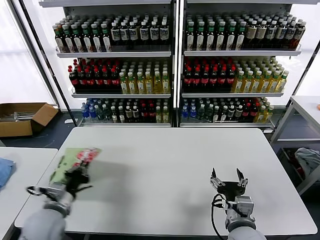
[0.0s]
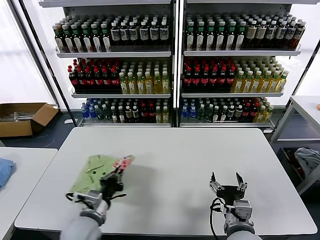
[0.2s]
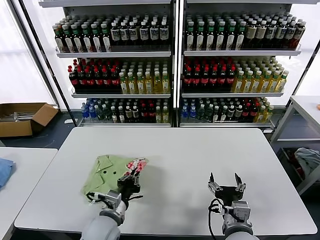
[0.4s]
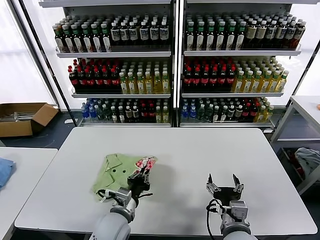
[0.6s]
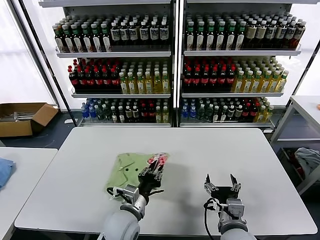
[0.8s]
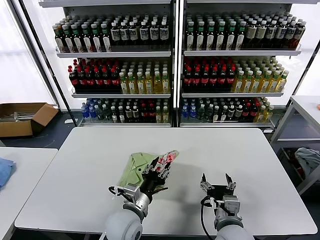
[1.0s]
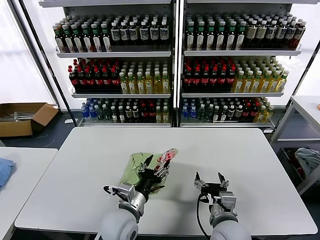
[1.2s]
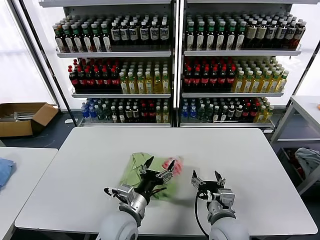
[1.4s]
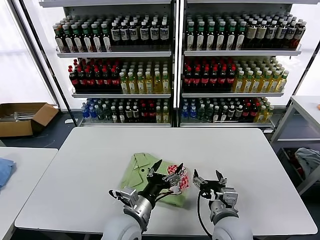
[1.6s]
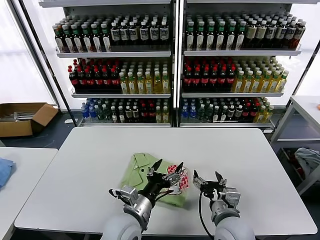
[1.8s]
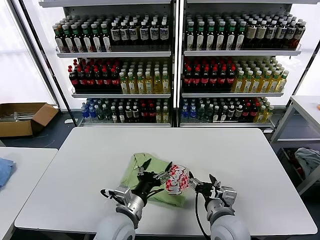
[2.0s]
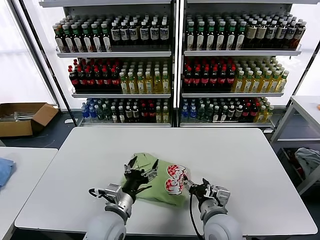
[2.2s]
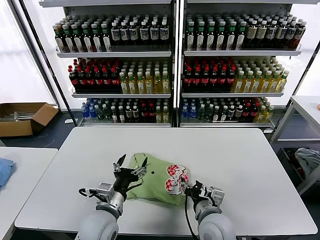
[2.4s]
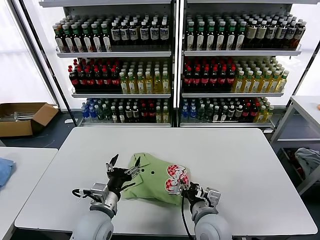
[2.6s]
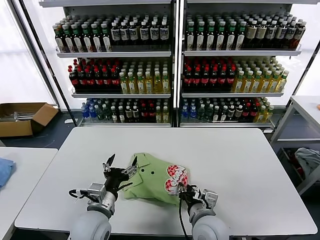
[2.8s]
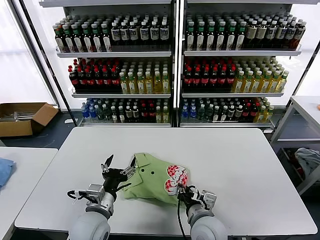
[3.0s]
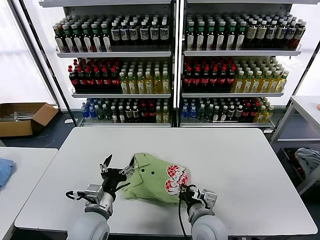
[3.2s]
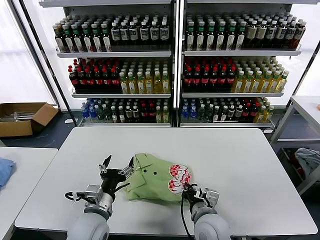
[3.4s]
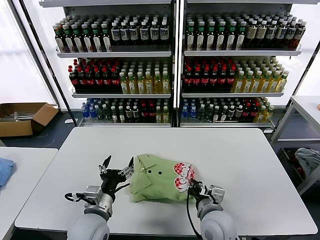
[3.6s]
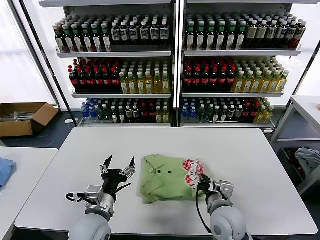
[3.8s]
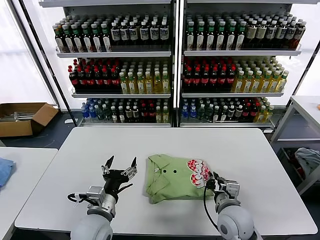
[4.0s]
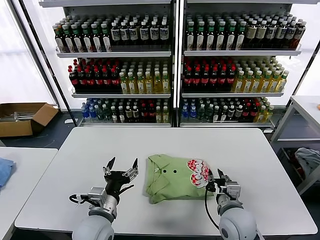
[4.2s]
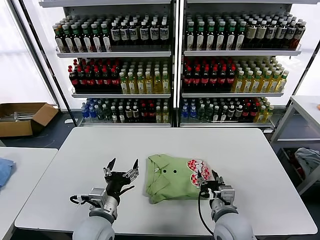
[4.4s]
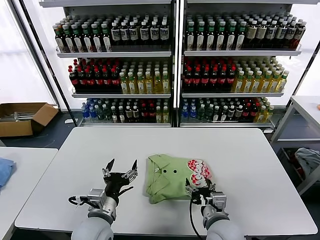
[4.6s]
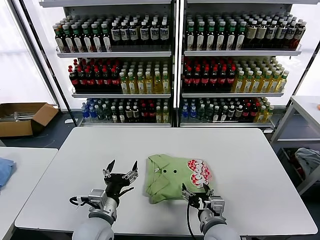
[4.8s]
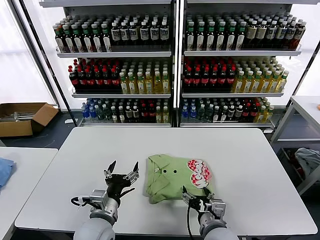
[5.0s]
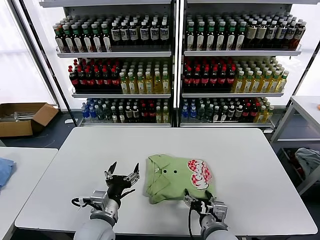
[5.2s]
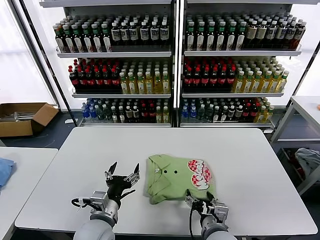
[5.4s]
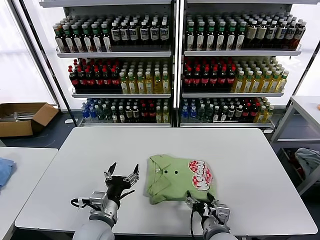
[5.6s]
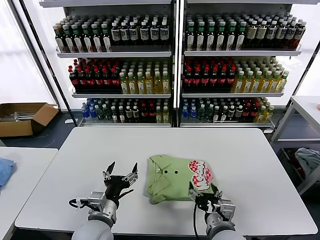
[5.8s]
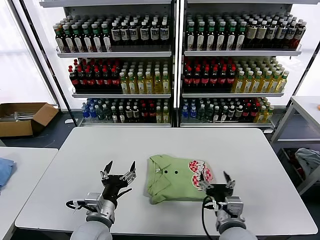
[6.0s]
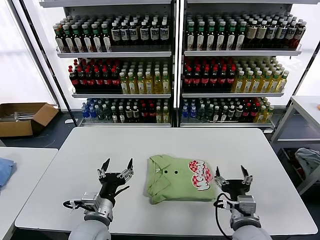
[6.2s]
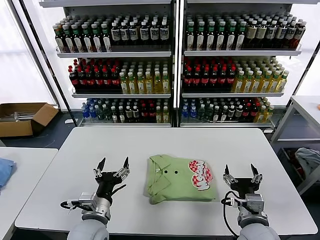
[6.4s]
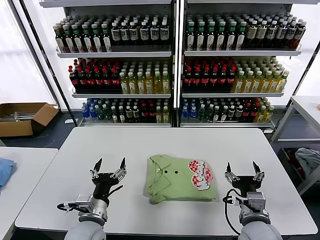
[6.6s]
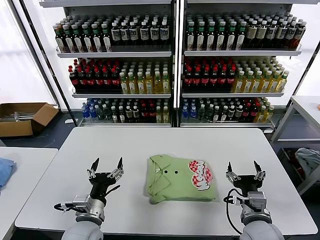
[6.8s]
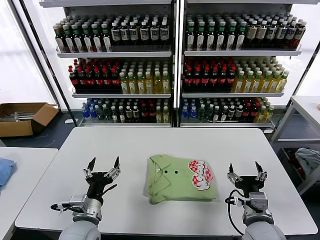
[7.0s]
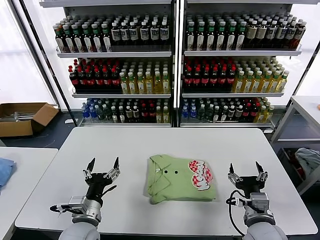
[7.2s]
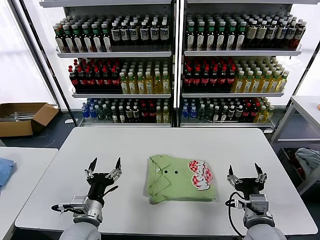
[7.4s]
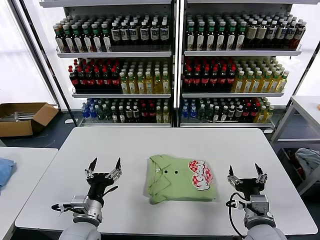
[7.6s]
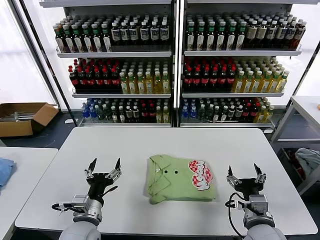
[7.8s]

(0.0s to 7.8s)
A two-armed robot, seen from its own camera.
Task of the whole recording: fold and organize the clothes.
Step, 2.0s - 5.6s: Drag the clothes to the center of the table.
0.0s - 1.6s: The left gripper goes about 25 cm to the right, and opens up.
1.6s - 3.2s: The left gripper shifts some 10 cm to the left, while the right gripper heads to the left, covering about 5 cm, and closes up.
3.2s - 4.6s: The right gripper opens up.
4.6s - 6.2s: The right gripper moves about 5 cm.
6.2s - 7.8s: The grippers make only small movements.

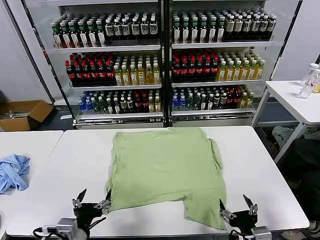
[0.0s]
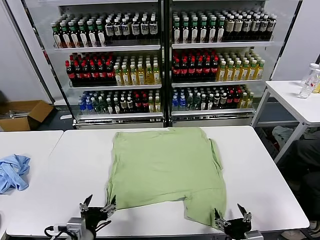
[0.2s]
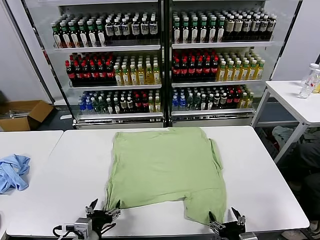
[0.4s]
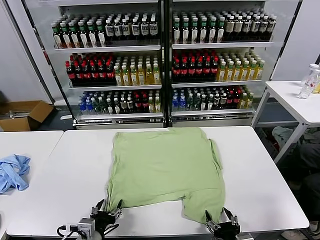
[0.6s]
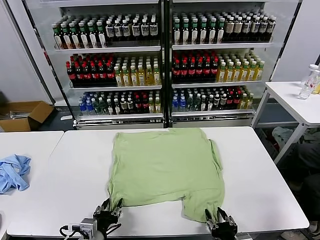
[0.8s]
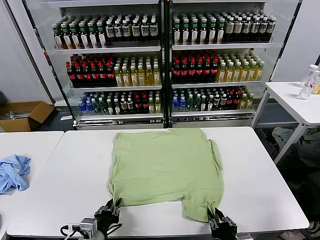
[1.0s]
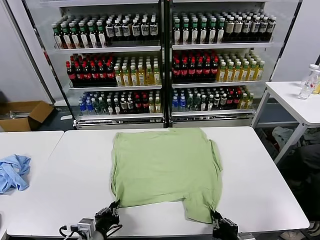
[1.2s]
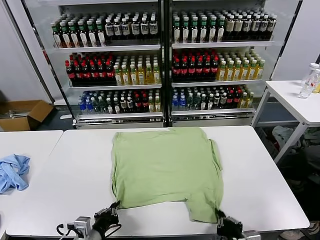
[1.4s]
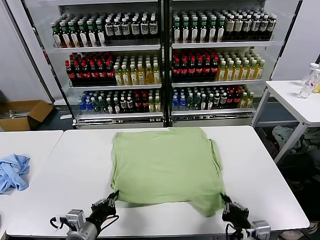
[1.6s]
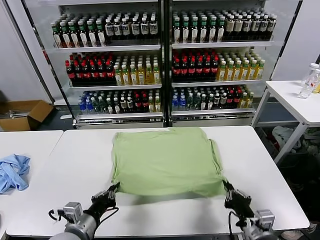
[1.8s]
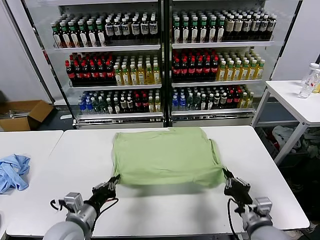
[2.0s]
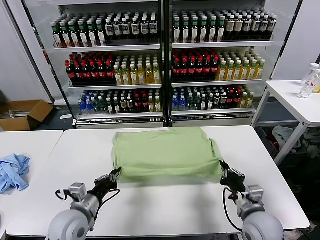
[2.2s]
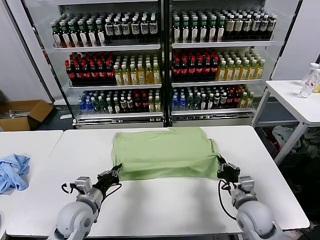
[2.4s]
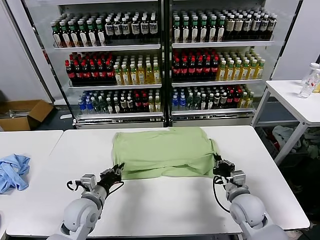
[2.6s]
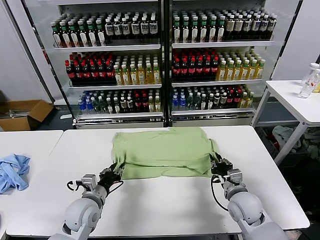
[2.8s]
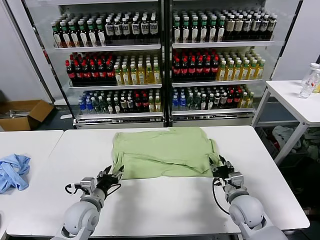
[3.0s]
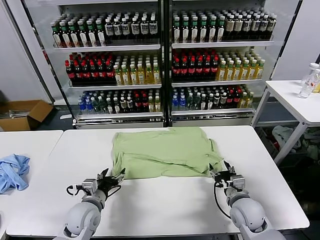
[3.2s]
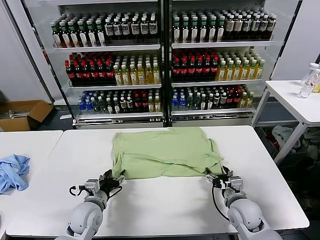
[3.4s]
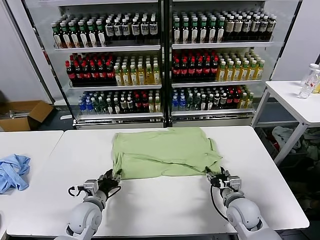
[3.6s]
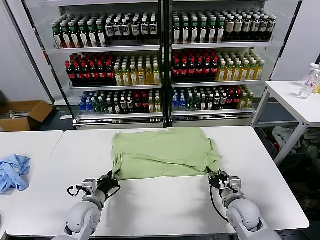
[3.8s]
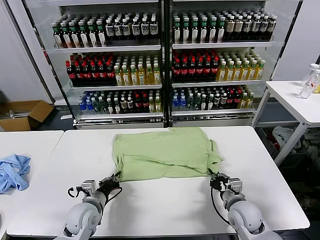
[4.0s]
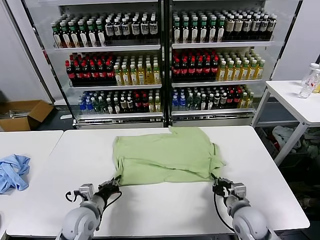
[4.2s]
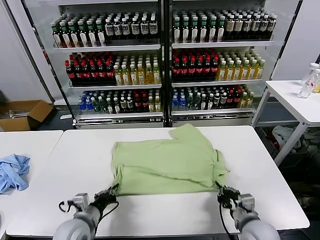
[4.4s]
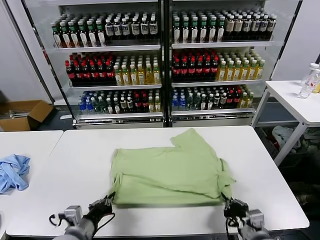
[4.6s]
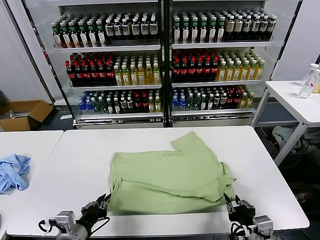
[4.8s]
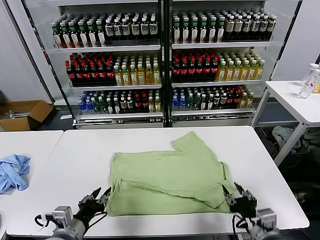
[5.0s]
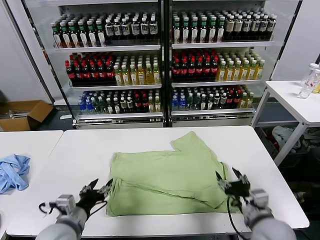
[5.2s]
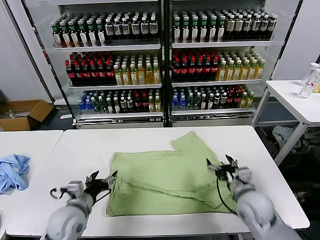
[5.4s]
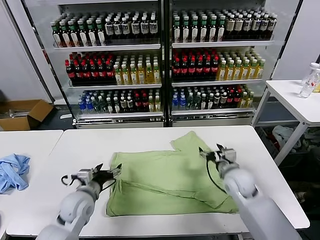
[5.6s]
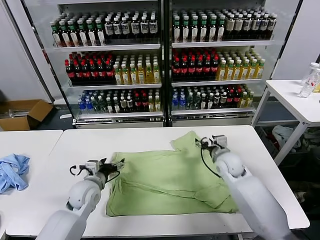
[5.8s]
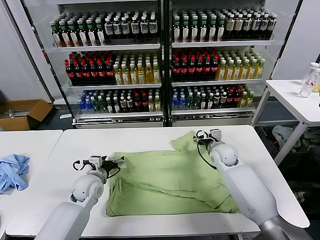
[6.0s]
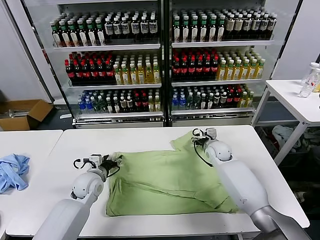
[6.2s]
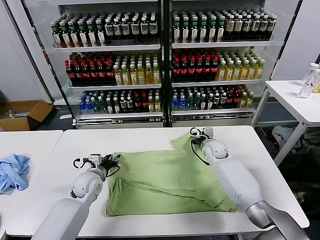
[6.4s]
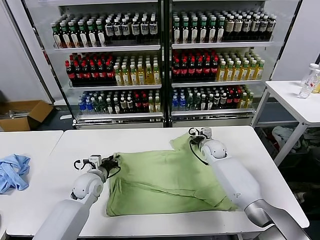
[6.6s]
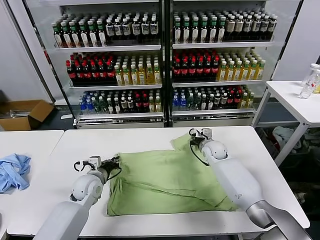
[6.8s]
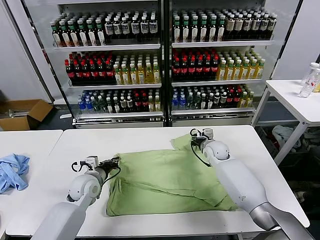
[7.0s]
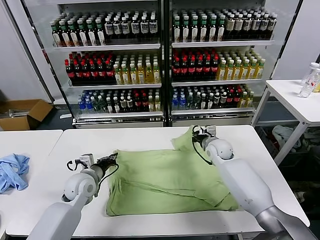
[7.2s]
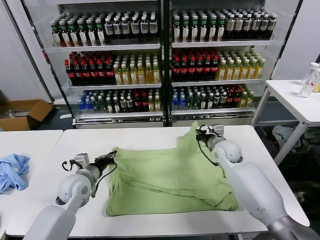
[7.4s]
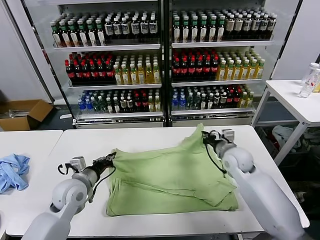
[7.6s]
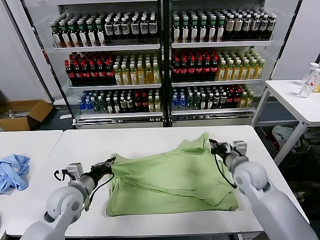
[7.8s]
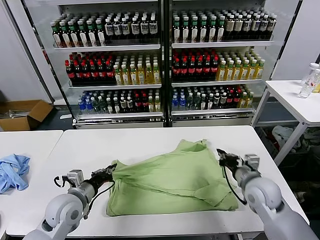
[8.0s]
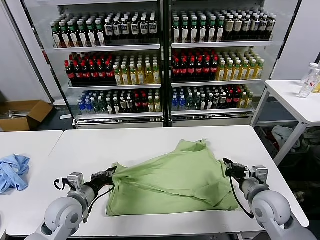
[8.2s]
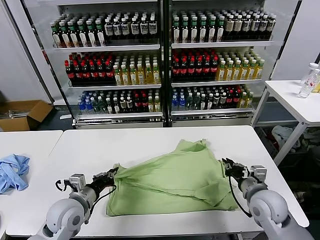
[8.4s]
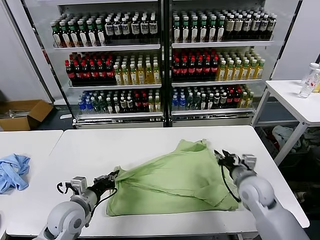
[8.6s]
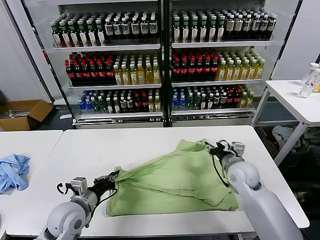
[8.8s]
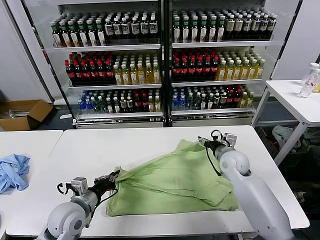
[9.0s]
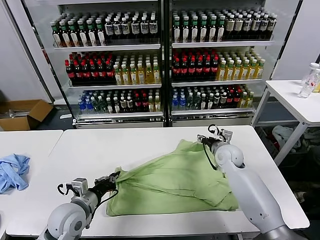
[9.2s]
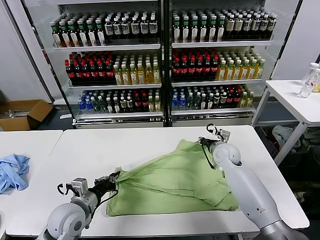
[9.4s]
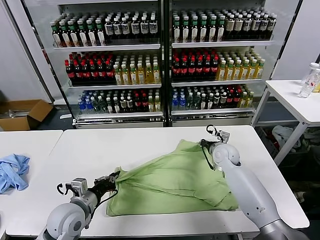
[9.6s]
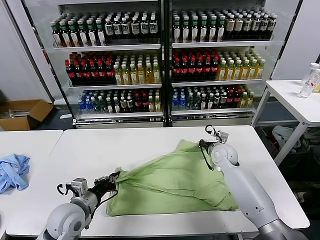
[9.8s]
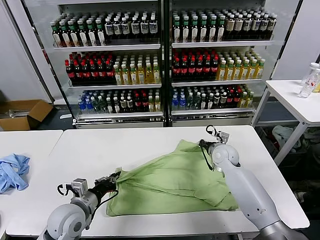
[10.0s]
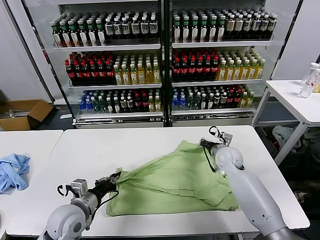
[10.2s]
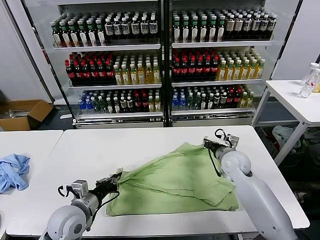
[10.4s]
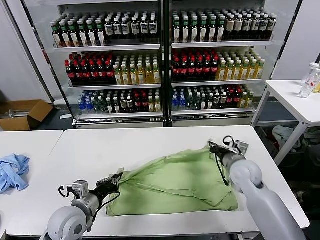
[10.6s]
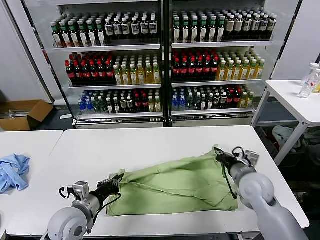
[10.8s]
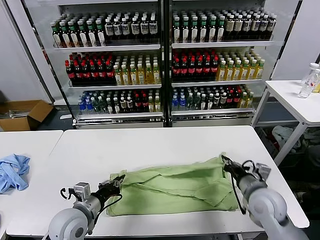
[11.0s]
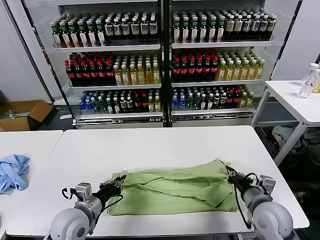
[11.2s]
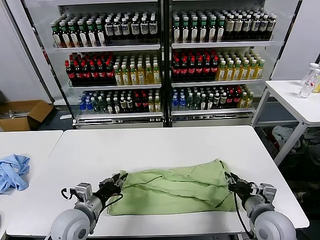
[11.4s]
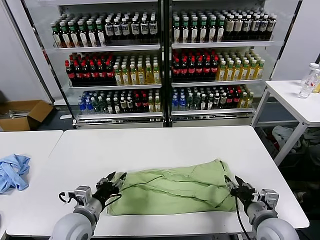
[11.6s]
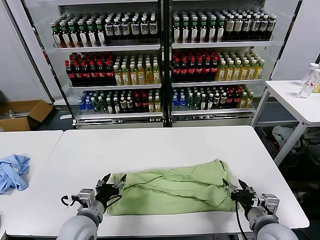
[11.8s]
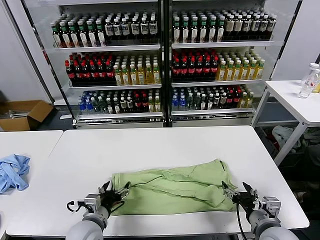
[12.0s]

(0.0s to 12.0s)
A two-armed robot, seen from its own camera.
Task of the whole recording: fold and organize the clothes.
Step, 0.0s - 1.2s: use both grippers simultaneously to clamp the lower edge of the clothing fabric.
Step, 1.4s - 3.0s: use both grippers to drag the lower edge of the fabric forward and fold it over the upper edge.
Step, 3.2s - 4.8s: Drag the clothes downward with both gripper.
Step, 5.0s - 6.8s: use both grippers simultaneously to clamp the upper edge of the clothing fabric.
Step, 7.0s - 11.4s: use both grippers to drag the upper edge of the fabric backward and fold it over the lower edge.
1.6s - 3.0s: Both grippers move forward, about 15 cm. The left gripper opens, while the right gripper opens its fingers.
3.0s - 4.4s: The left gripper goes roughly 5 cm backward, and closes its fingers, while the right gripper heads backward, covering roughly 10 cm, and closes up.
4.4s - 6.0s: The left gripper goes about 15 cm forward, and opens, while the right gripper shifts about 35 cm forward, and opens.
6.0s - 7.6s: The left gripper travels backward and upward by roughly 10 cm, and closes up. The right gripper travels backward and upward by roughly 10 cm, and closes.
7.6s - 9.0s: The right gripper reaches about 15 cm backward, then returns, and opens, while the left gripper moves backward, some 5 cm.
9.0s - 10.4s: The right gripper closes its fingers.
10.4s - 12.0s: The right gripper shifts about 25 cm backward, and opens. Meanwhile the left gripper ends up approximately 5 cm from where it was, and opens its fingers.

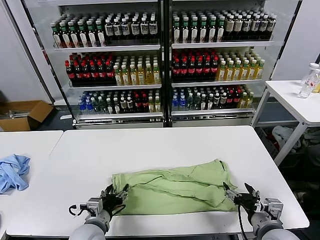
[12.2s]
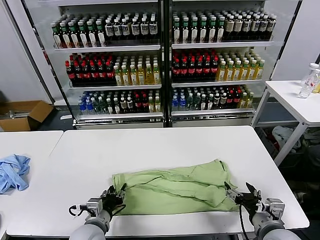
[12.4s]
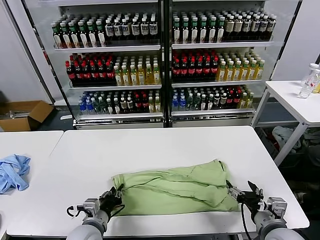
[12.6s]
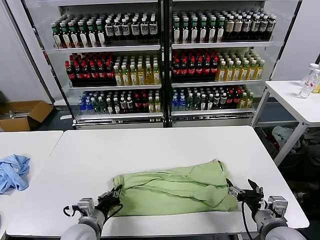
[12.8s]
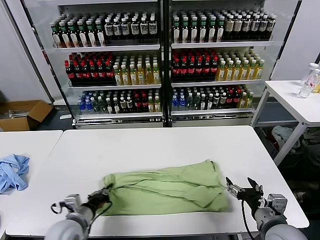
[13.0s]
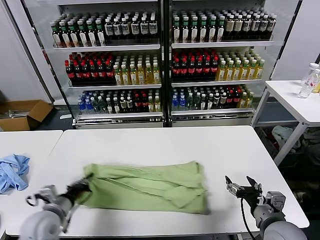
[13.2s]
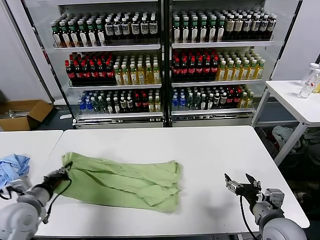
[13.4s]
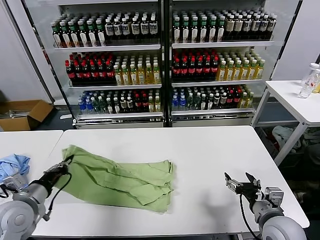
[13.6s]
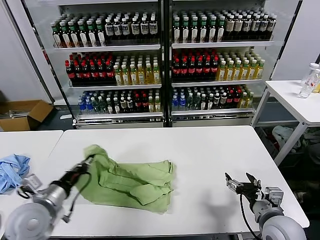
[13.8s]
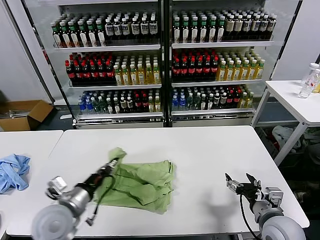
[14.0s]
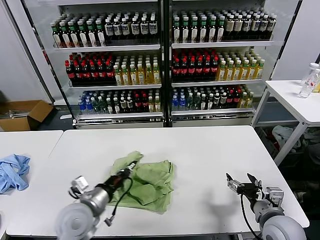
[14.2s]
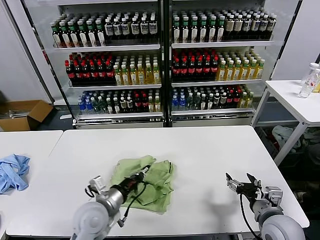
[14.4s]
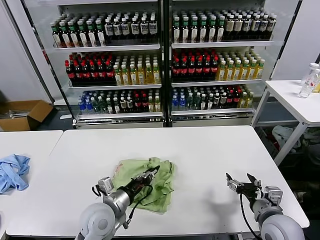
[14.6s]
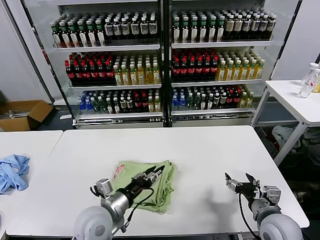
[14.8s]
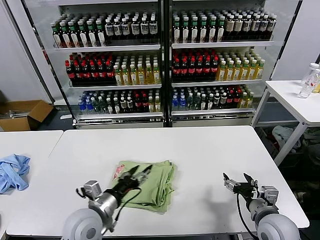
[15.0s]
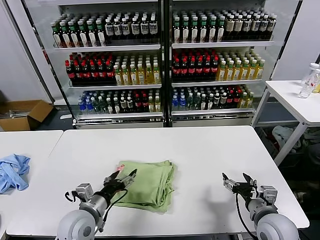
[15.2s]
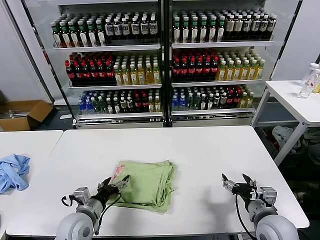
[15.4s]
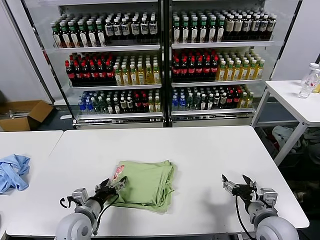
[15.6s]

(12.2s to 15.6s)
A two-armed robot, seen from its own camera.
Task of the whole recording: fold and organize the clothes.
Step, 13.0s - 14.6s: use the left gripper to drag the left edge of the fabric to the left and folds it over the right edge.
12.2s - 13.8s: The left gripper shifts some 15 cm upward and to the left, and closes.
13.8s - 15.6s: The left gripper heads downward and to the right, covering roughly 15 cm, and opens.
